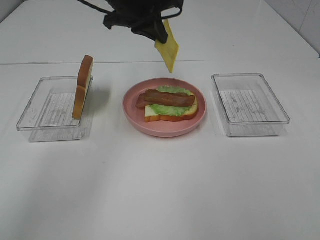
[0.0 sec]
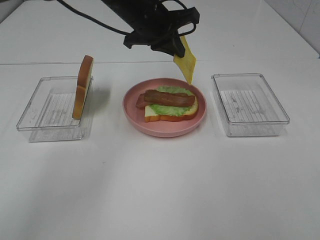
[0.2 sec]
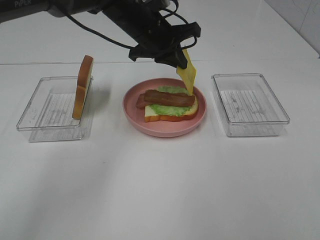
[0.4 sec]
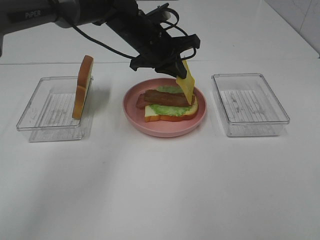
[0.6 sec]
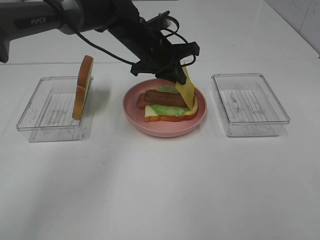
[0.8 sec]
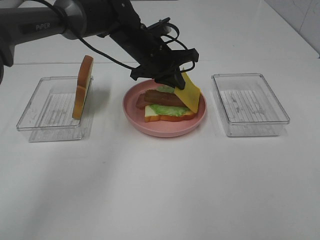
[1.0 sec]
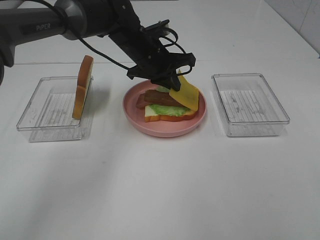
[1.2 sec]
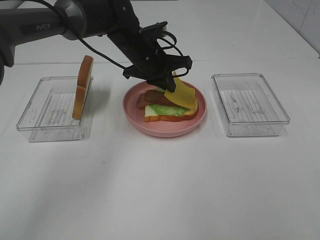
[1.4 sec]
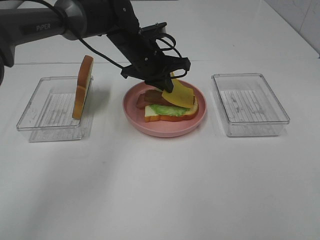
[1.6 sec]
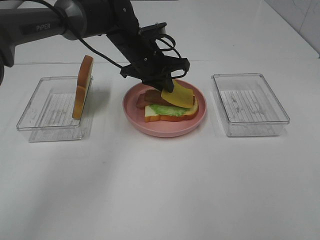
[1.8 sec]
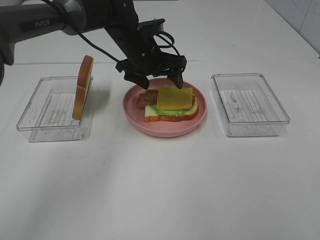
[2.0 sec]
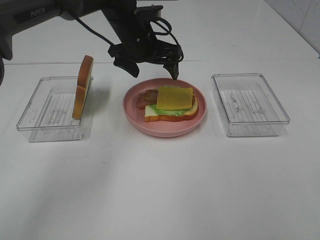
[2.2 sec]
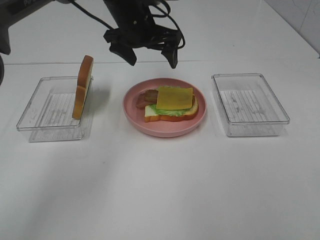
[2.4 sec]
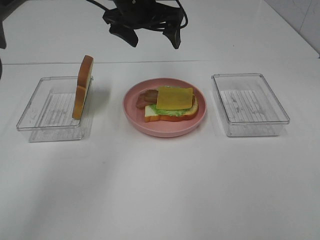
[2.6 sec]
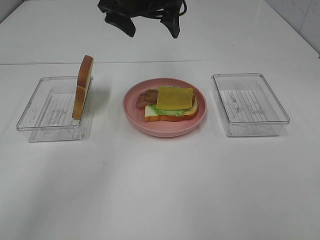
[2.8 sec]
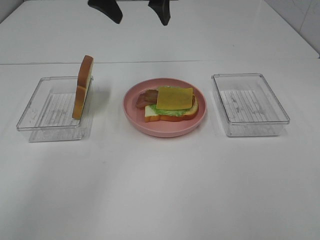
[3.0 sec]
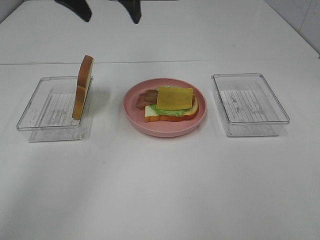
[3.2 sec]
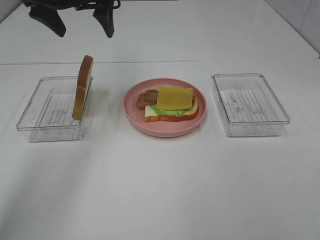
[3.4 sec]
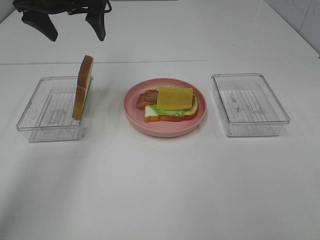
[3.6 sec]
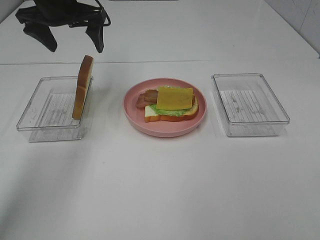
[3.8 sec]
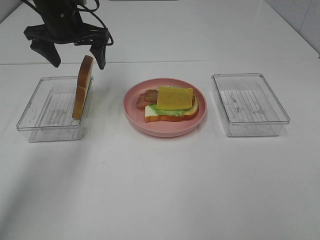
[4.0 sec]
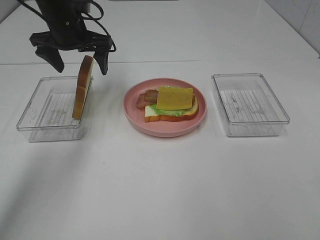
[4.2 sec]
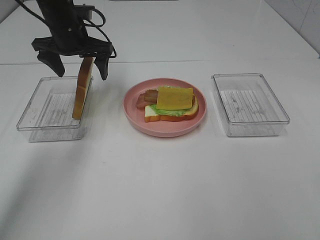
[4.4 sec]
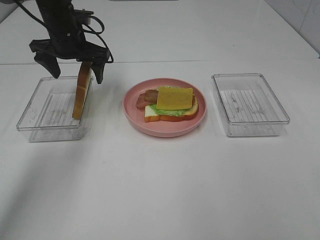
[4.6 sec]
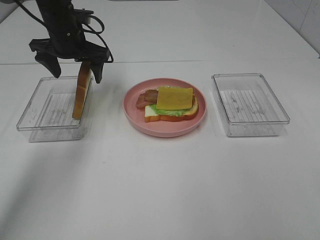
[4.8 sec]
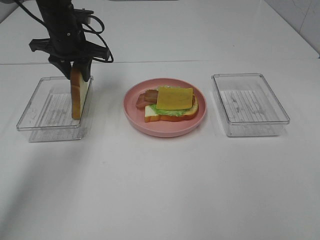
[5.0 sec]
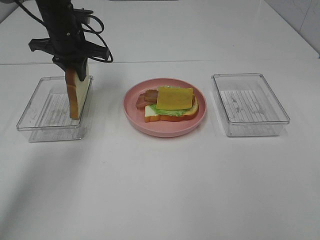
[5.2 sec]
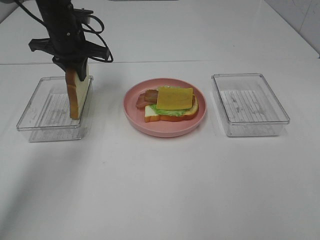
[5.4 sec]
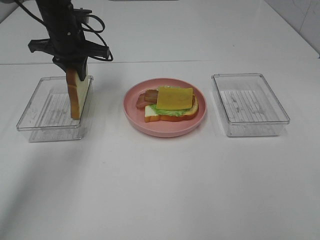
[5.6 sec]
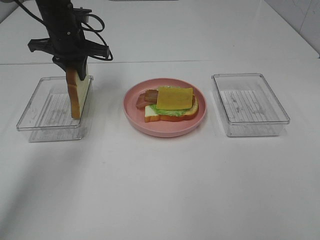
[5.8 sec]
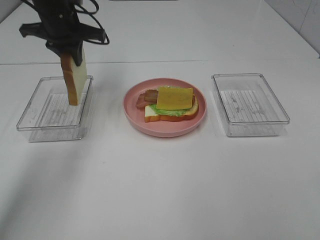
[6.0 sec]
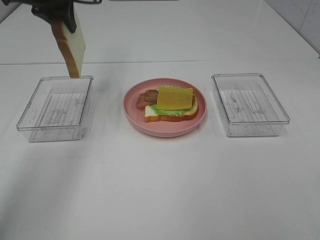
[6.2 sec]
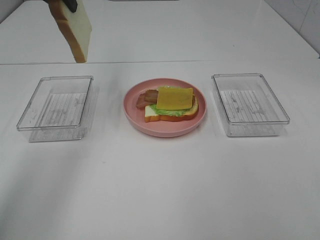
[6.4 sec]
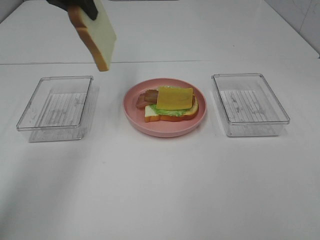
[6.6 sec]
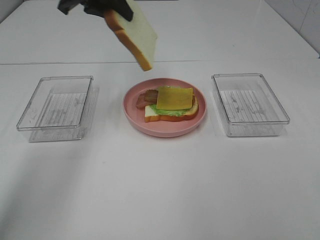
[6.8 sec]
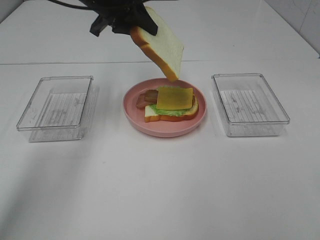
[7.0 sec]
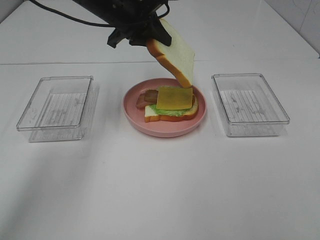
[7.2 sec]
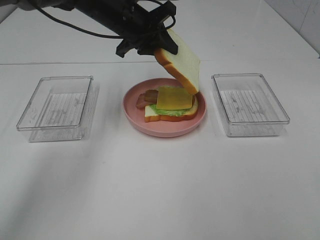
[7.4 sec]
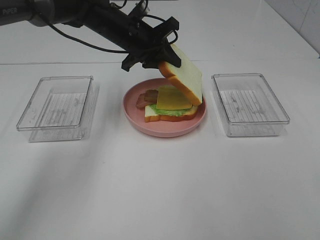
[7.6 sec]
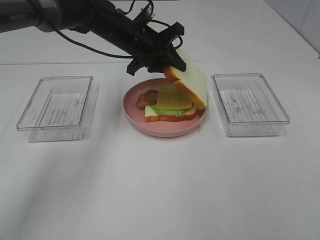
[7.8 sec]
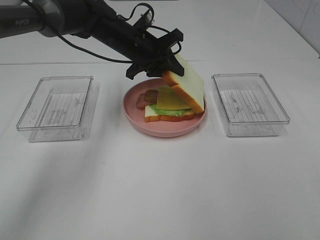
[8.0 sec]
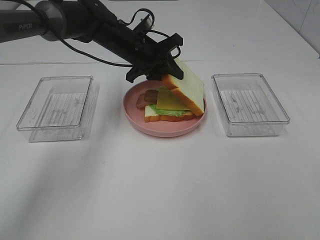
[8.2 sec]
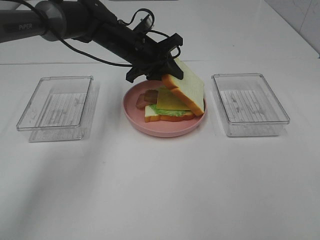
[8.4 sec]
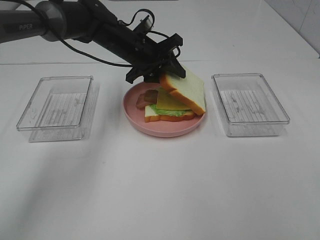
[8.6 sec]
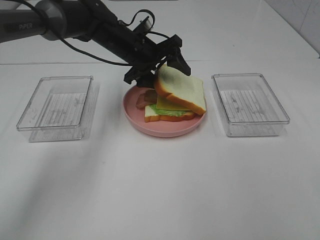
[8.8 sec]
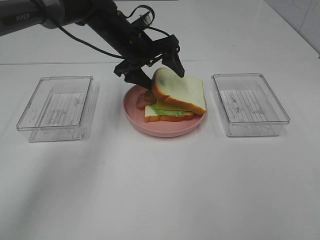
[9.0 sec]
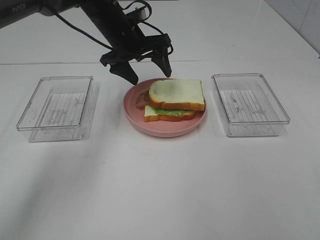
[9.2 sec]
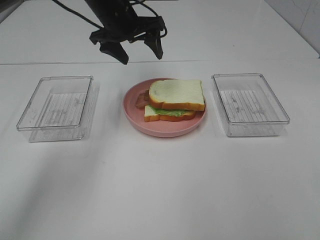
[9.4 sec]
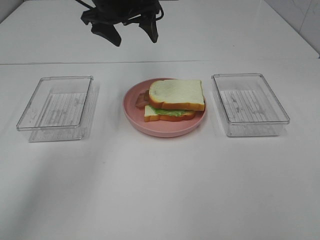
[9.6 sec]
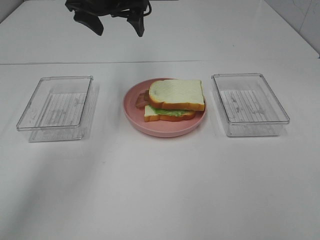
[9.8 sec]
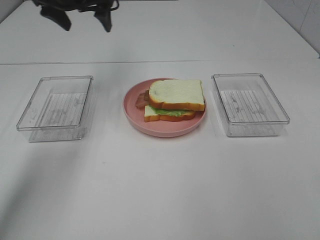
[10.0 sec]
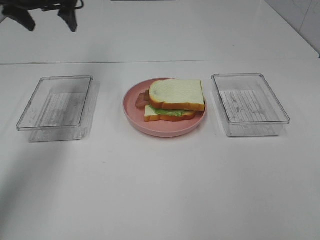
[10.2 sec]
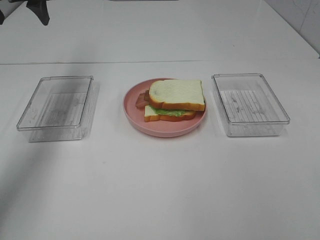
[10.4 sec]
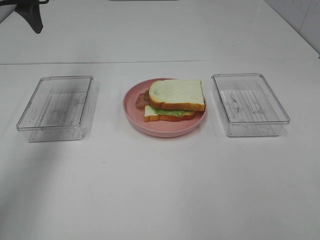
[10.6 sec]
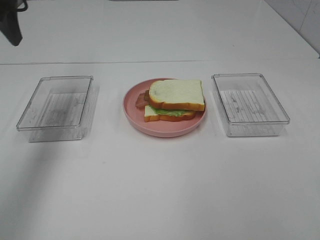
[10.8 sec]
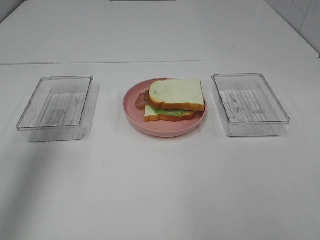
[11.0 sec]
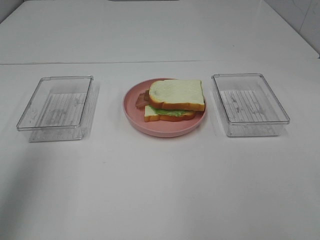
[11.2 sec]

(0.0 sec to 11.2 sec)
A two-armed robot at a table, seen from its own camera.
Task of the whole recording: Make sandwiches.
Step, 0.0 sec - 2.0 sec: Left hand:place the cheese slice on top of the bacon.
Step, 2.2 sec - 5.6 sec: Left hand:grab the bread slice.
Step, 5.8 sec - 9.2 sec: Left hand:place the bread slice on the cheese slice.
0.0 sec - 1.6 sec: The left gripper goes approximately 10 cm downward.
1.6 sec - 3.2 sec: The left gripper goes roughly 20 cm upward and to the left, and opens up.
3.2 sec - 4.8 sec: The left gripper heads downward and forward, covering roughly 15 cm.
4.8 sec - 6.4 sec: The left gripper travels upward by roughly 15 cm, and closes its fingers.
6.4 sec - 8.0 sec: The left gripper shifts approximately 20 cm downward and to the right.
8.0 sec - 9.6 sec: The left gripper is displaced upward by approximately 10 cm, and opens up.
9.6 sec - 11.2 sec: The left gripper is displaced backward and to the left by roughly 35 cm.

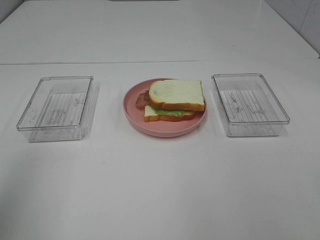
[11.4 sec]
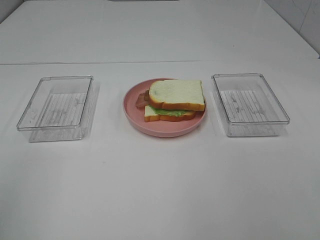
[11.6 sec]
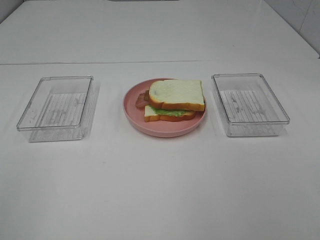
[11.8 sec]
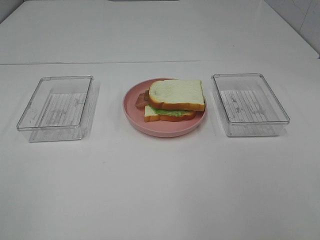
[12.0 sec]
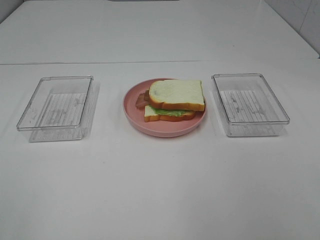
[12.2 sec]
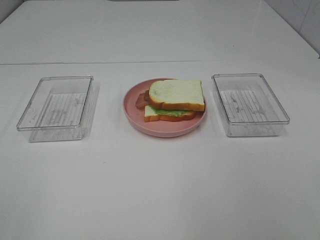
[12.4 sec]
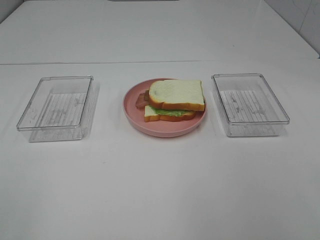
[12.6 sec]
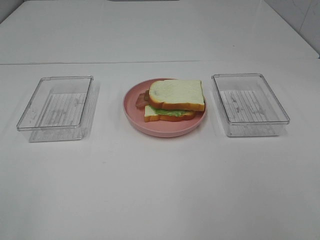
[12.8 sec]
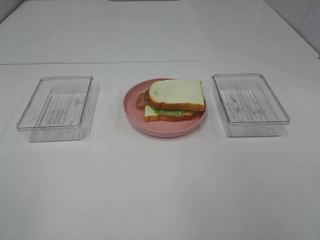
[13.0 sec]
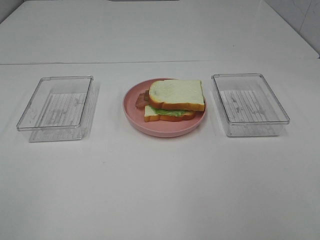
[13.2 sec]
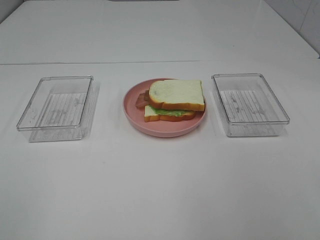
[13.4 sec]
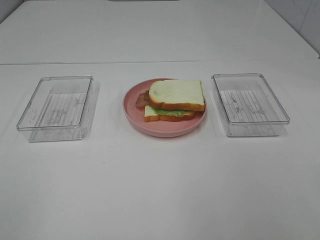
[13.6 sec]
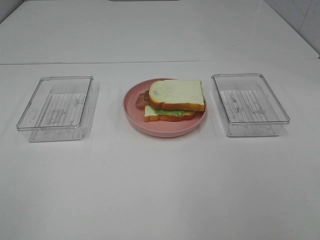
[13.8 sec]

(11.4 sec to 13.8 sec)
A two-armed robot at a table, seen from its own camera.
Task of the whole recording: Make sandwiches.
11.4 sec - 12.6 sec: The left gripper goes some 15 cm backward and downward.
